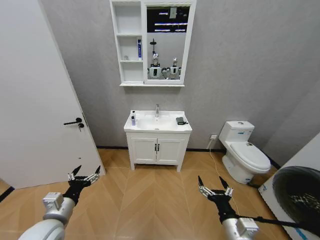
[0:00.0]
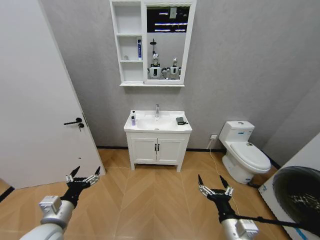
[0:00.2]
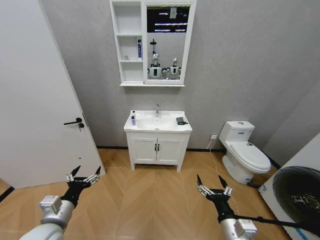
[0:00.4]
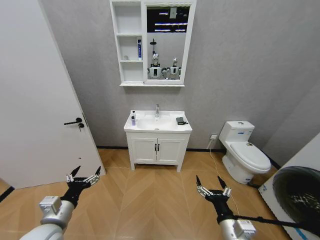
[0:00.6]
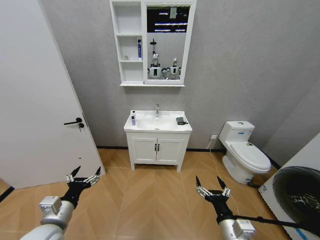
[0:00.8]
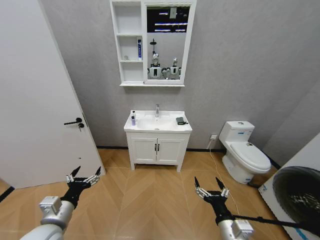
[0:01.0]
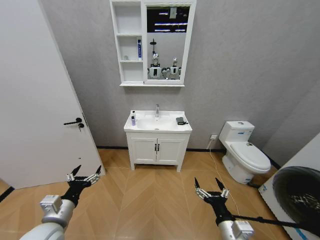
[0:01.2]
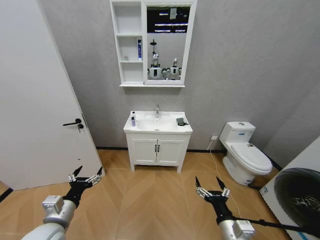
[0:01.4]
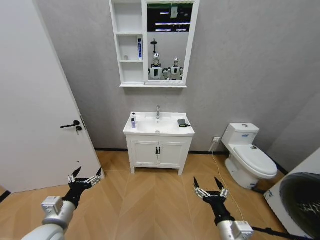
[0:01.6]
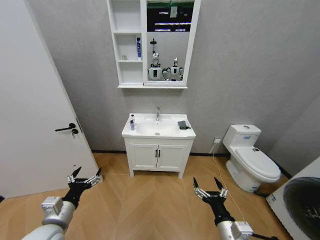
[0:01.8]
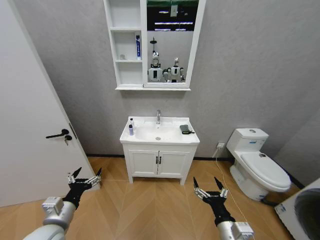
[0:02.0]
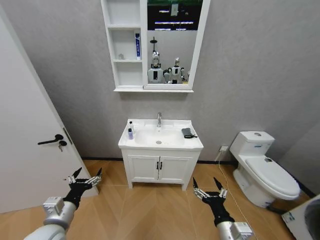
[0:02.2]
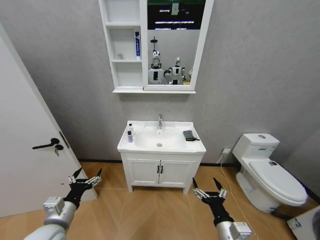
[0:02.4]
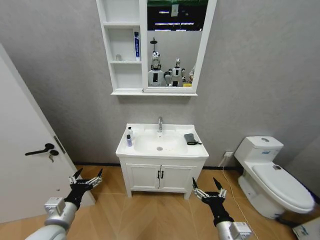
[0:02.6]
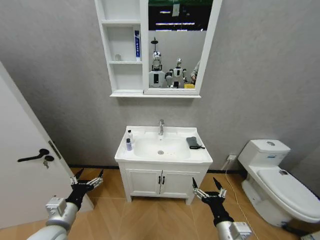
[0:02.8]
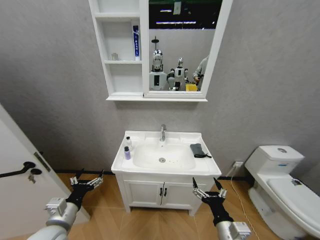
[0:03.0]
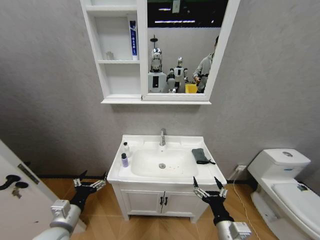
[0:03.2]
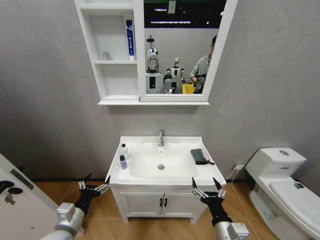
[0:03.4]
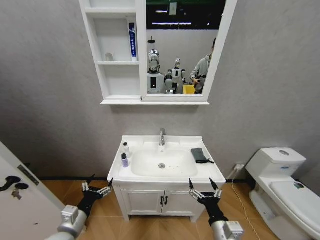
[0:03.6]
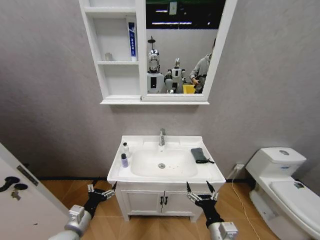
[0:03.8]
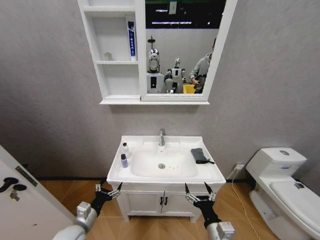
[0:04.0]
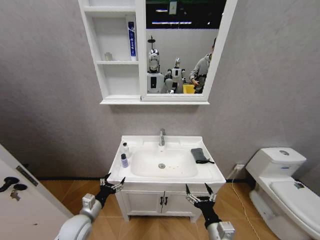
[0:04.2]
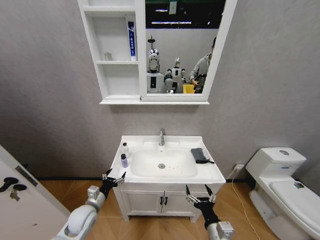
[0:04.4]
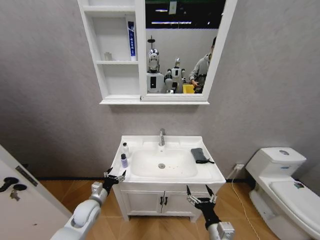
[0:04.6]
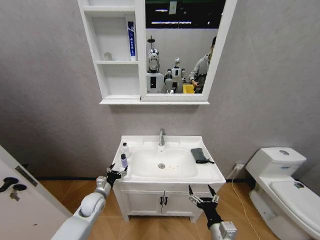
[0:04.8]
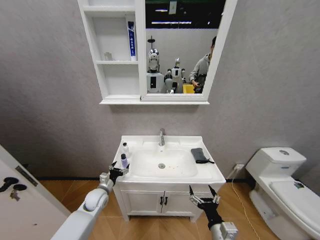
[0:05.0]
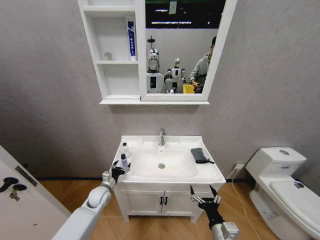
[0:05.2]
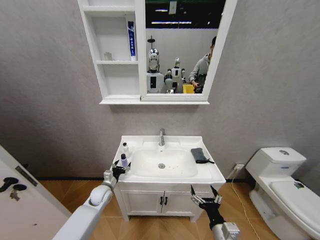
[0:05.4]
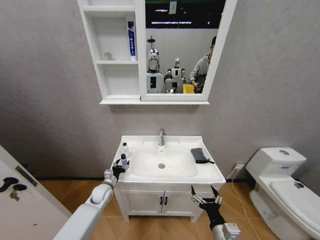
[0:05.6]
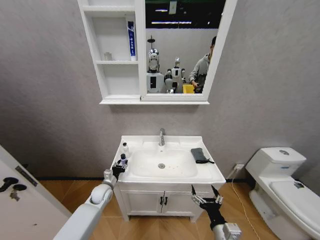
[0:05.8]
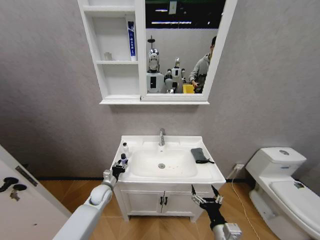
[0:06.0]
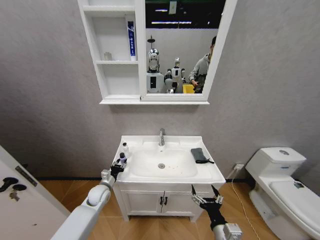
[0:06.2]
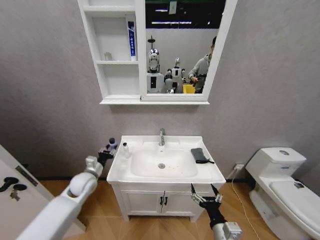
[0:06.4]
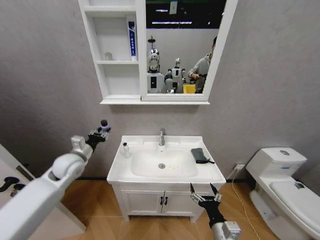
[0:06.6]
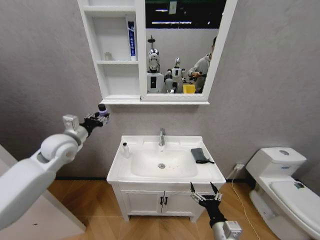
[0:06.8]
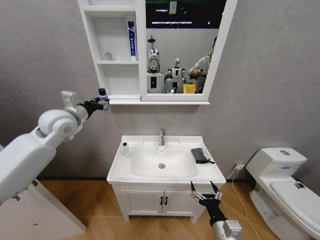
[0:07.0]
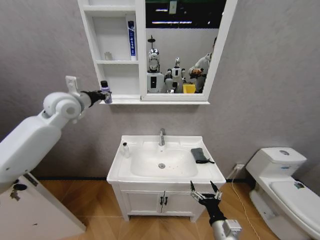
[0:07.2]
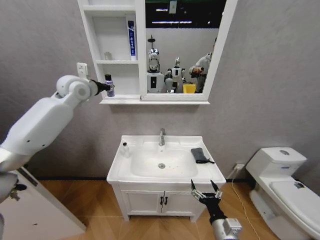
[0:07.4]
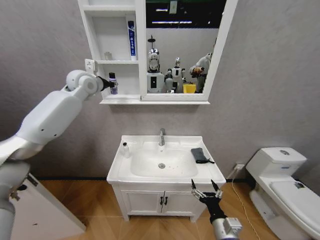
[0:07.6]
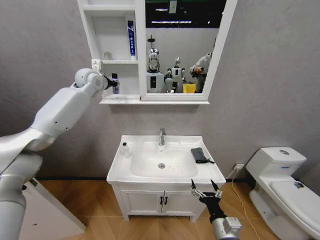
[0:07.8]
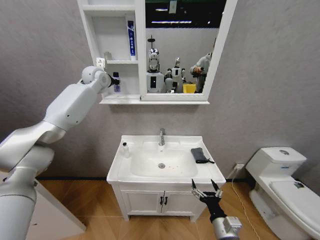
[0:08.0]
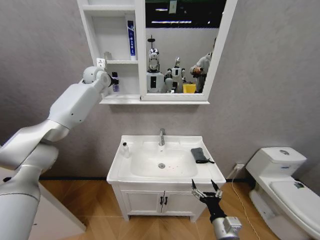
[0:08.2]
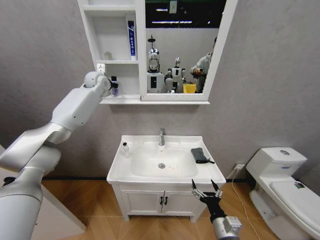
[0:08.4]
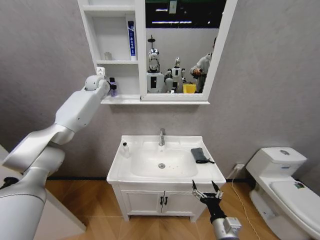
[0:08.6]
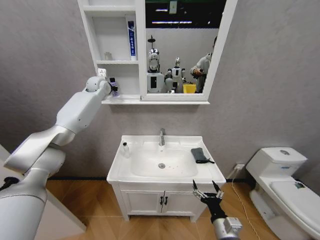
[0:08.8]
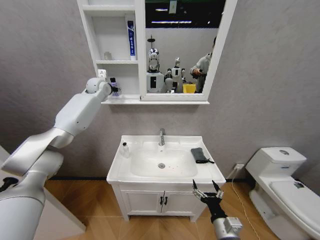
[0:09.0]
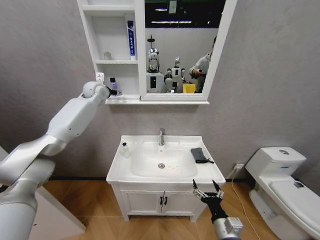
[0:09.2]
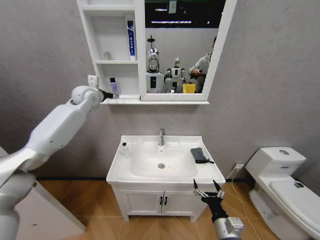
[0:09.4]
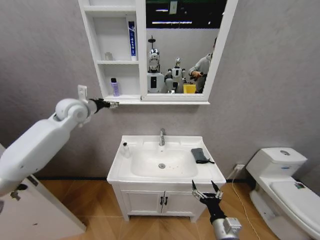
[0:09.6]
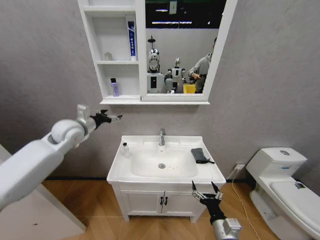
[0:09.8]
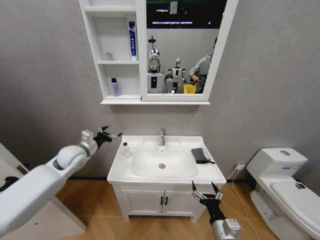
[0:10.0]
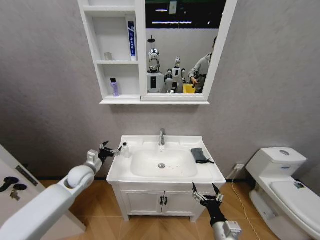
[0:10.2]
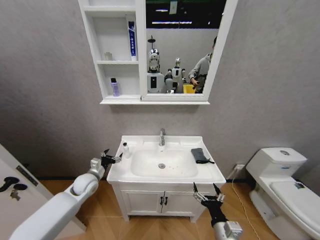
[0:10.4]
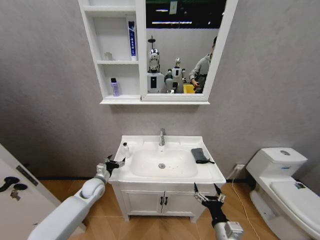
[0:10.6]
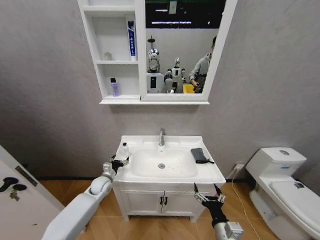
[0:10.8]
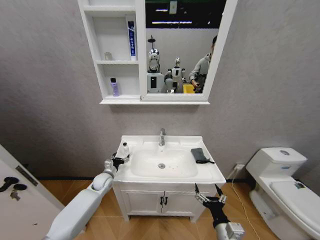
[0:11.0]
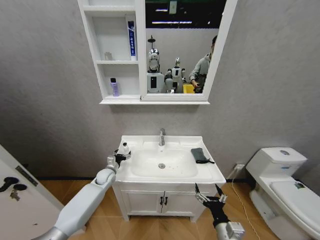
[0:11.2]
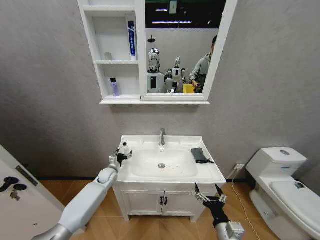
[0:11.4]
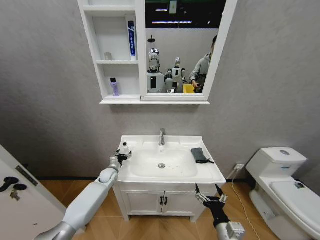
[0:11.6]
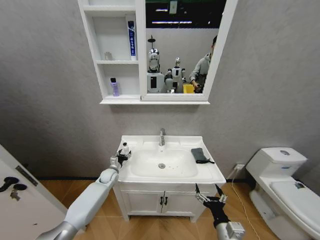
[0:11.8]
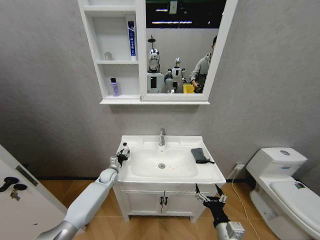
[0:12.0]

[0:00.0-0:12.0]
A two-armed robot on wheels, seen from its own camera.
Task of the whole recording: Move facial cleanser and shampoo from washbasin to cabinet, then wipe washbasin with towel.
0:03.0 to 0:04.4: The left gripper travels downward and forward by roughly 15 cm.
0:04.4 to 0:06.0: The left gripper travels forward by approximately 10 cm, and closes its fingers.
0:06.0 to 0:07.6: The left gripper heads upward and forward, covering approximately 50 cm.
0:07.6 to 0:09.0: The left gripper shifts some 10 cm forward, and opens its fingers.
0:09.0 to 0:10.4: The left gripper moves downward and backward, approximately 40 cm, and opens its fingers.
0:10.4 to 0:12.0: The left gripper goes approximately 15 cm downward, forward and to the right, and closes its fingers.

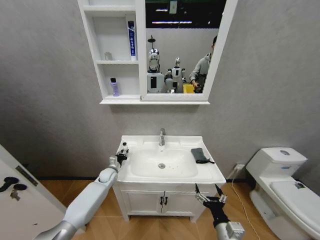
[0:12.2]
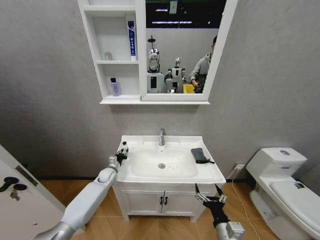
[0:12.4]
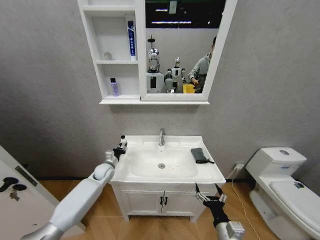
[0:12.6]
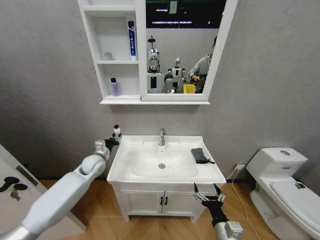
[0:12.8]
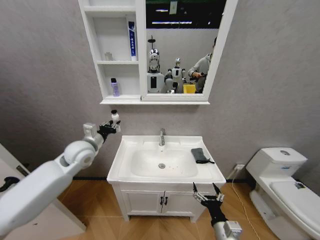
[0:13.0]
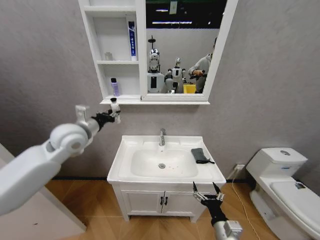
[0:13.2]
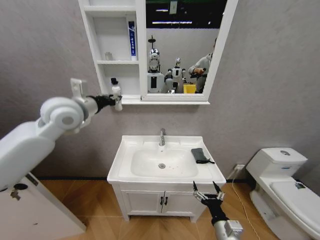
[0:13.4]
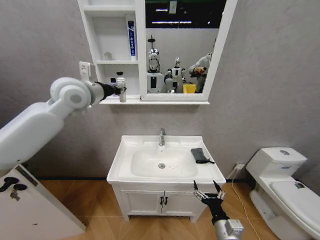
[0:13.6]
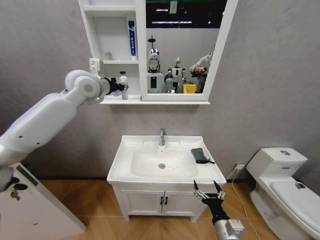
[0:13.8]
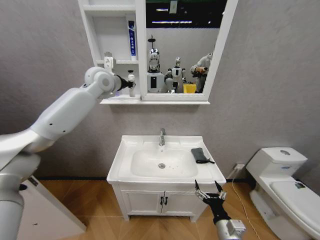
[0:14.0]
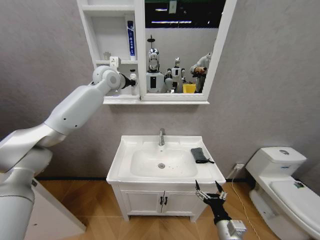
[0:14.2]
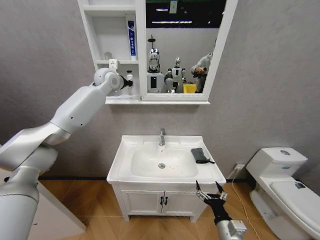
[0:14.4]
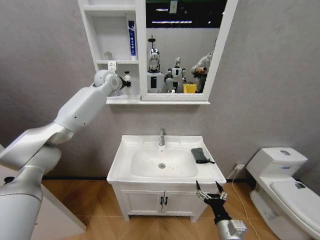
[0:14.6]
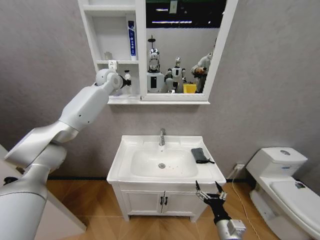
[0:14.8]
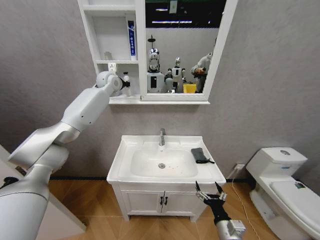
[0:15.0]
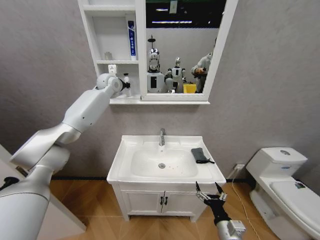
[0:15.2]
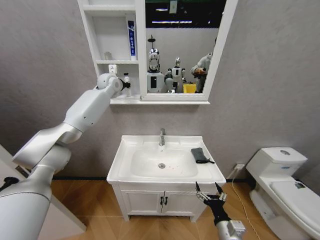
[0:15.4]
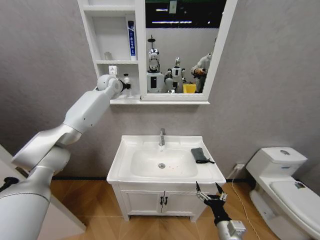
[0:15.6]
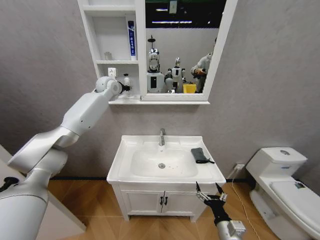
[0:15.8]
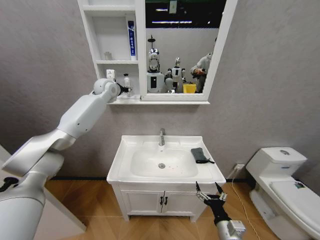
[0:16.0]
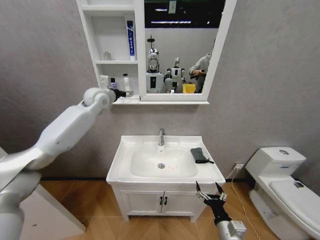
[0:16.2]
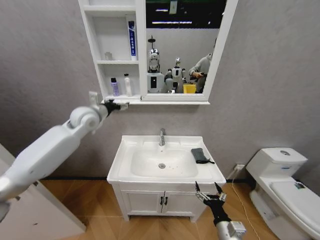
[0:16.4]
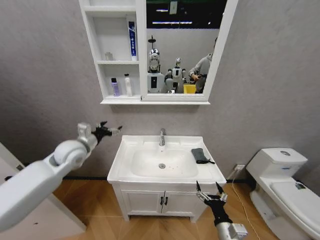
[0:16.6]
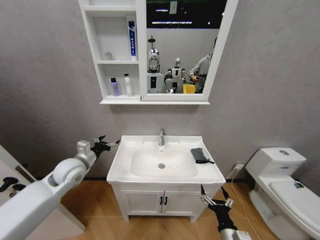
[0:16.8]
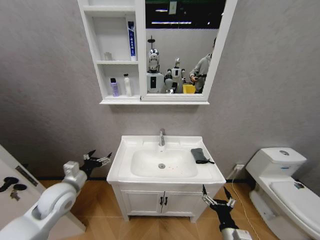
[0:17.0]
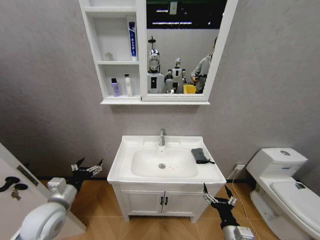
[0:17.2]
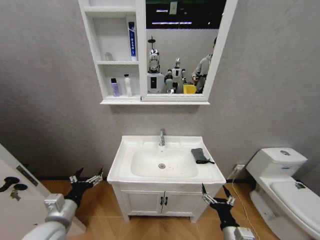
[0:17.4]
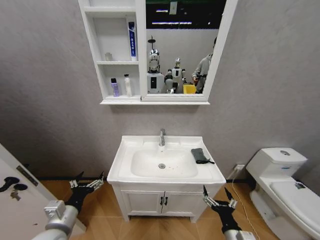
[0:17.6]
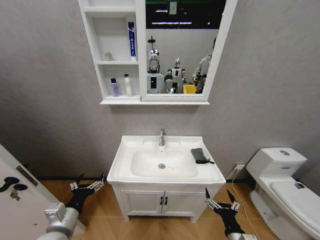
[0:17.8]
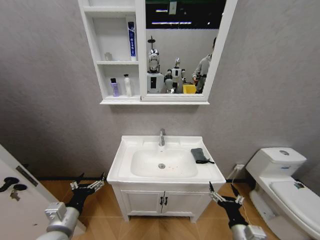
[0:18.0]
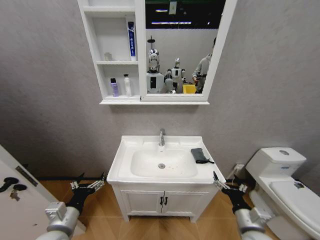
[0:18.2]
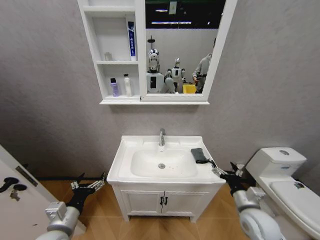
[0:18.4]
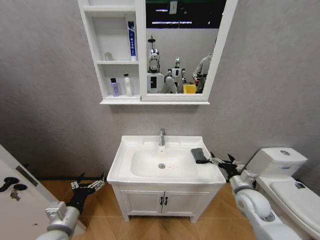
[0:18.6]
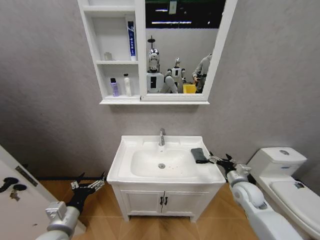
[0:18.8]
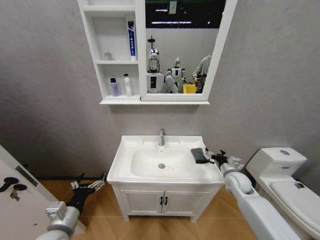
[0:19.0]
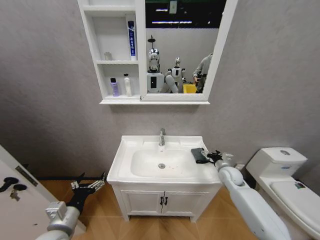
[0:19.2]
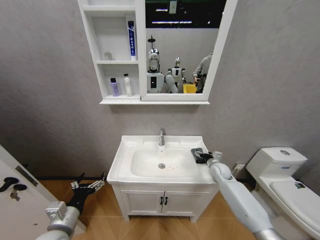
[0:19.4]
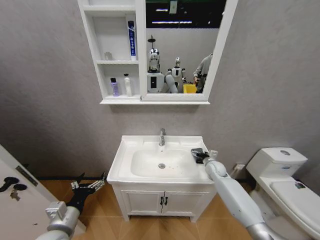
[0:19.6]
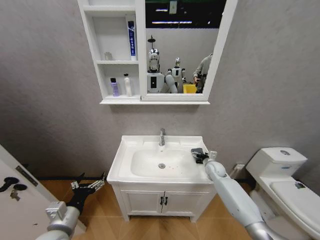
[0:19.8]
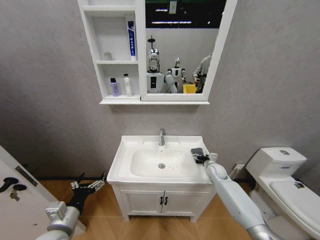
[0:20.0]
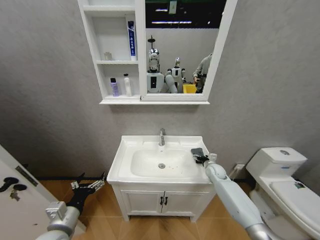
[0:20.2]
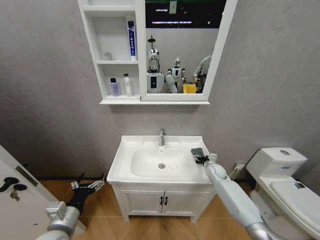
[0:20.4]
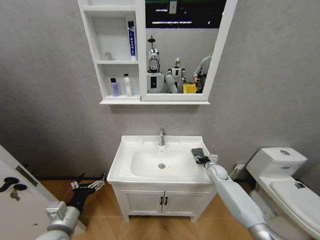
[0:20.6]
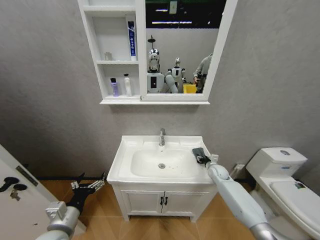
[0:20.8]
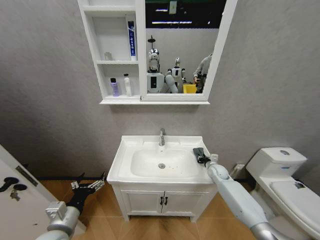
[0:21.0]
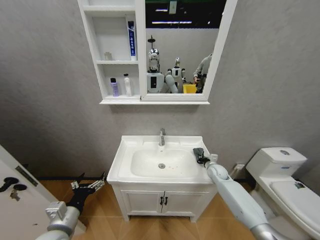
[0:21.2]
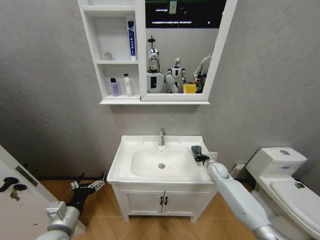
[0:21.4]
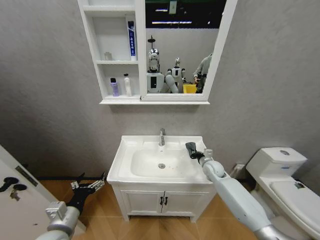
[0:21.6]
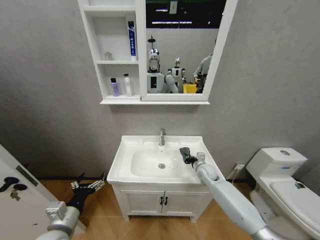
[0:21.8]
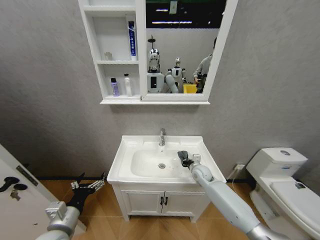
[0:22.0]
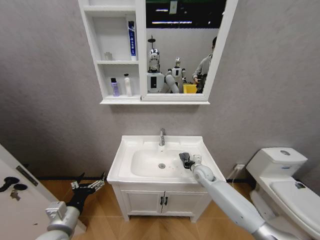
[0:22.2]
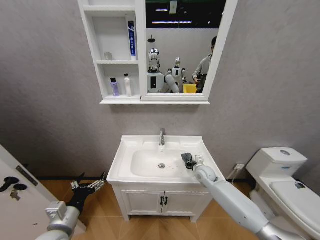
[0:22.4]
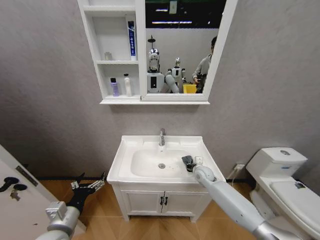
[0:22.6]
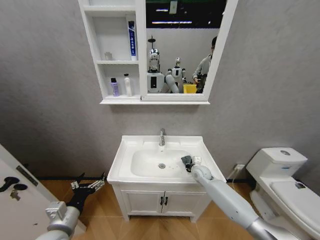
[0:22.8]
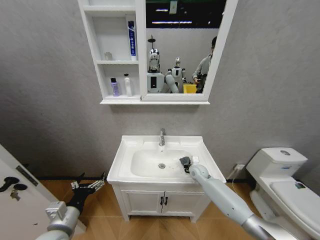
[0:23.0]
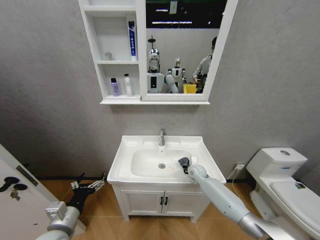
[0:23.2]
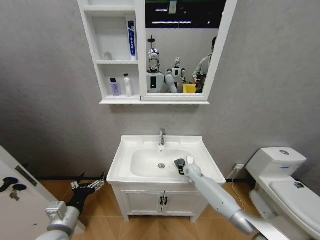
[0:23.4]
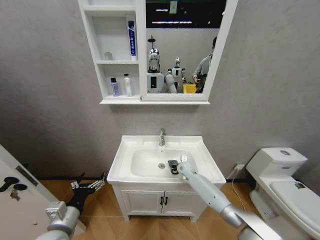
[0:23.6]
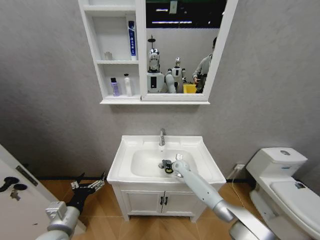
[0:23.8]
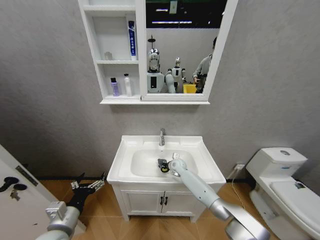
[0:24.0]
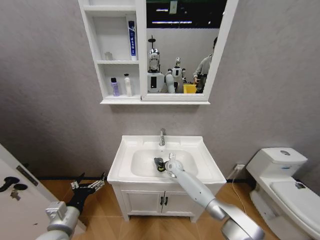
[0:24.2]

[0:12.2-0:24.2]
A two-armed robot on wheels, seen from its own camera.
Task of the whole recording: Move facial cleanser and shampoo from washbasin to cabinet, then wipe washbasin with towel.
0:12.2 to 0:13.8: The left gripper goes about 50 cm upward.
0:13.8 to 0:15.2: The left gripper travels forward by about 15 cm.
0:15.2 to 0:16.6: The left gripper heads backward, downward and to the left, covering approximately 30 cm, and opens up.
0:16.6 to 0:18.2: The right gripper heads to the right, covering about 5 cm, while the left gripper moves backward and downward, some 30 cm.
0:18.2 to 0:19.8: The right gripper shifts some 30 cm forward.
0:19.8 to 0:21.2: The right gripper closes its fingers.
0:21.2 to 0:22.6: The right gripper heads to the left, covering some 10 cm.
0:22.6 to 0:24.2: The right gripper moves to the left and forward, some 15 cm.
